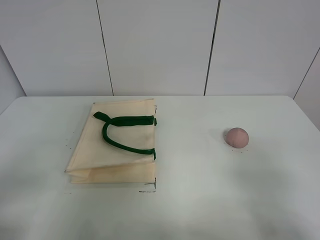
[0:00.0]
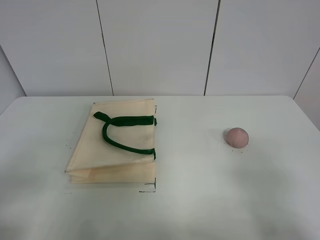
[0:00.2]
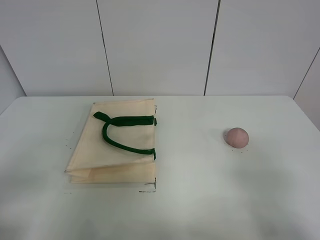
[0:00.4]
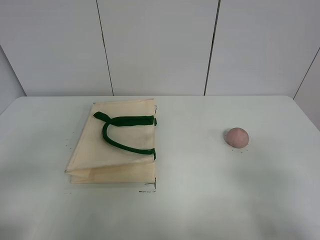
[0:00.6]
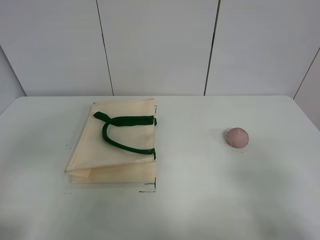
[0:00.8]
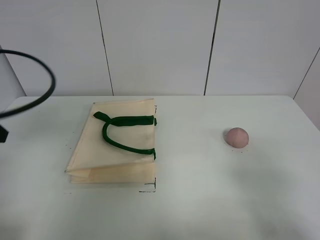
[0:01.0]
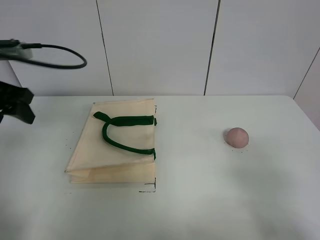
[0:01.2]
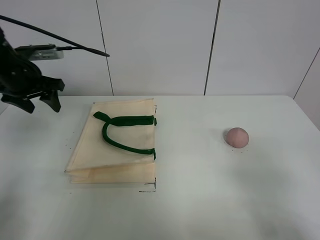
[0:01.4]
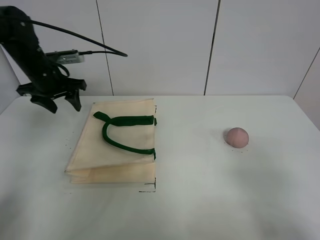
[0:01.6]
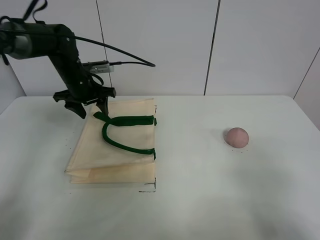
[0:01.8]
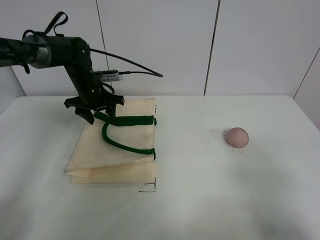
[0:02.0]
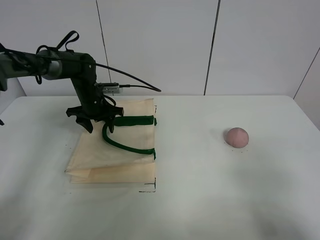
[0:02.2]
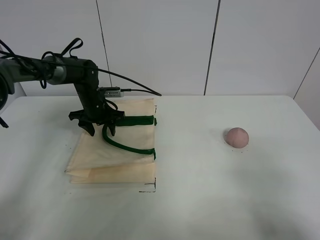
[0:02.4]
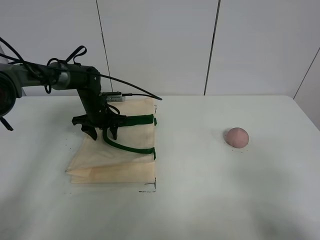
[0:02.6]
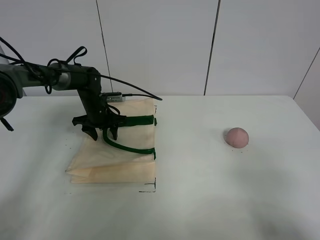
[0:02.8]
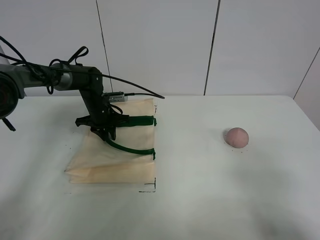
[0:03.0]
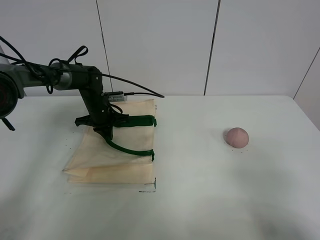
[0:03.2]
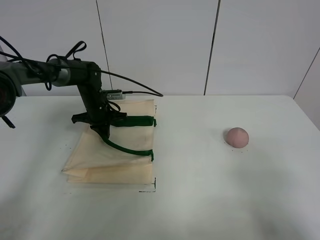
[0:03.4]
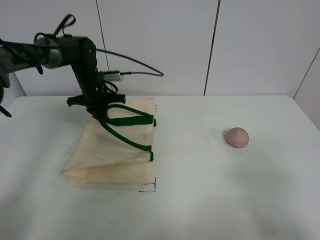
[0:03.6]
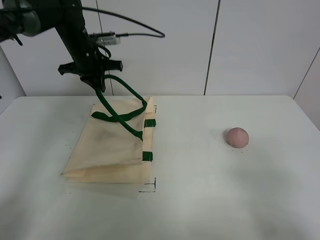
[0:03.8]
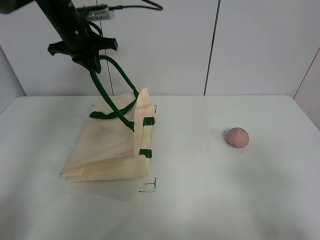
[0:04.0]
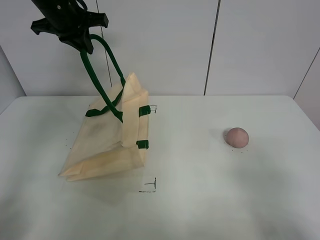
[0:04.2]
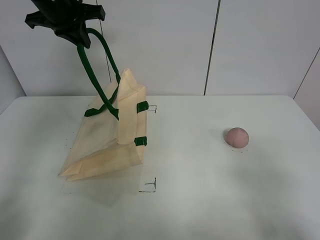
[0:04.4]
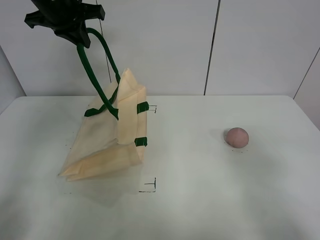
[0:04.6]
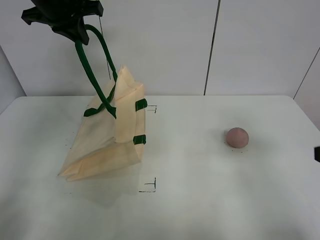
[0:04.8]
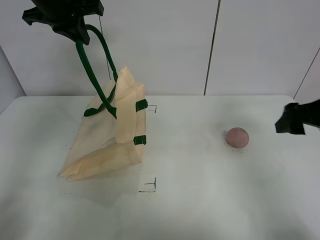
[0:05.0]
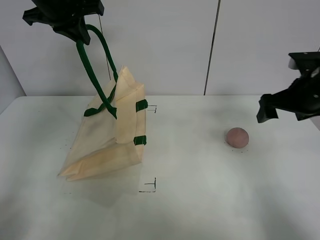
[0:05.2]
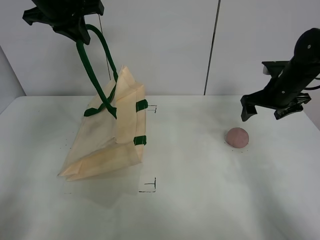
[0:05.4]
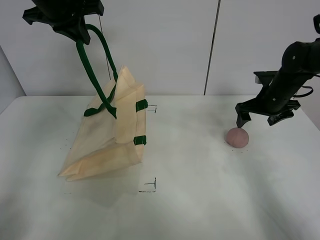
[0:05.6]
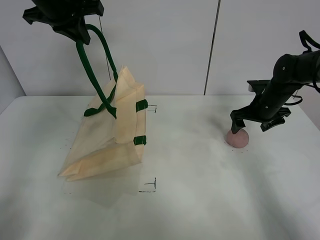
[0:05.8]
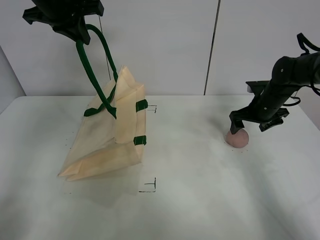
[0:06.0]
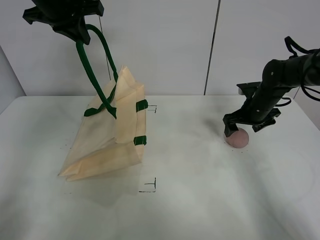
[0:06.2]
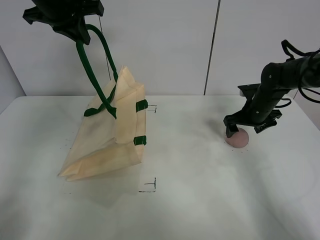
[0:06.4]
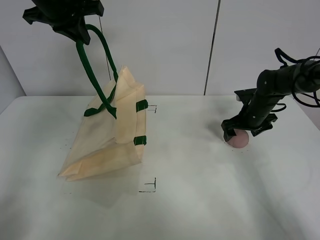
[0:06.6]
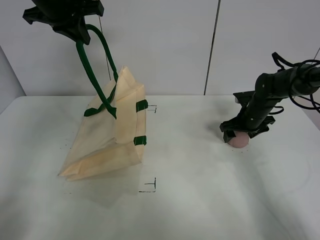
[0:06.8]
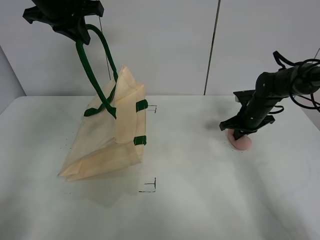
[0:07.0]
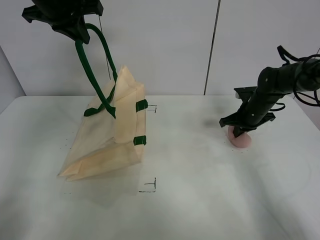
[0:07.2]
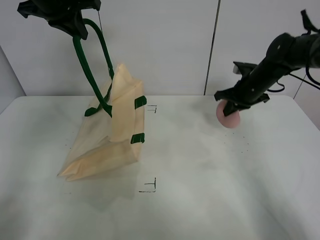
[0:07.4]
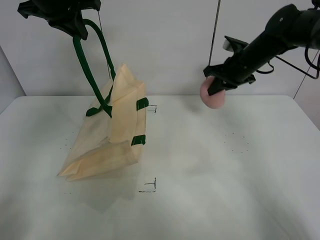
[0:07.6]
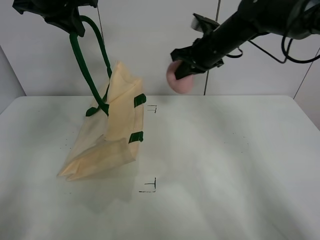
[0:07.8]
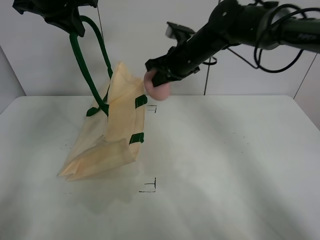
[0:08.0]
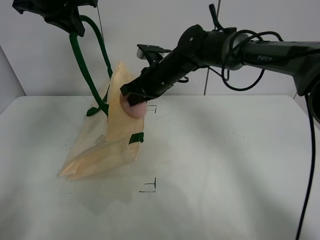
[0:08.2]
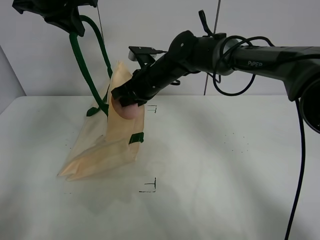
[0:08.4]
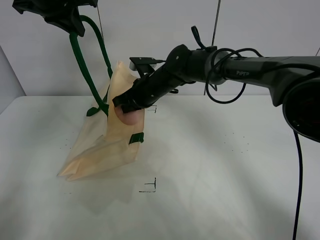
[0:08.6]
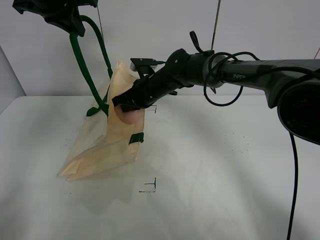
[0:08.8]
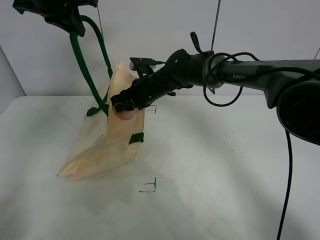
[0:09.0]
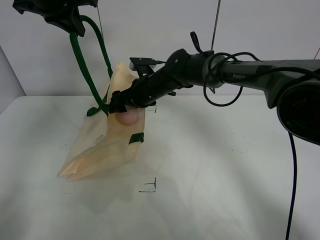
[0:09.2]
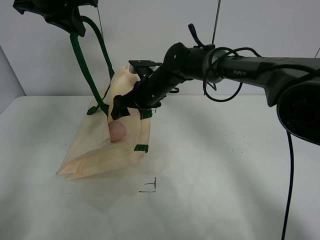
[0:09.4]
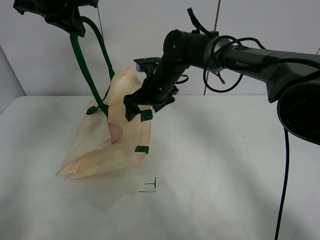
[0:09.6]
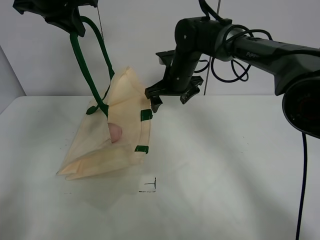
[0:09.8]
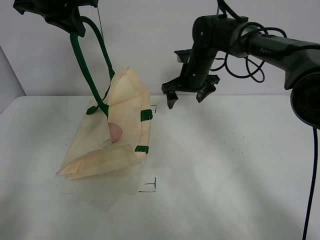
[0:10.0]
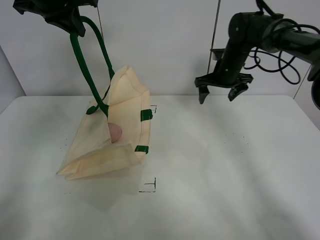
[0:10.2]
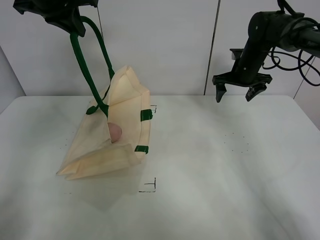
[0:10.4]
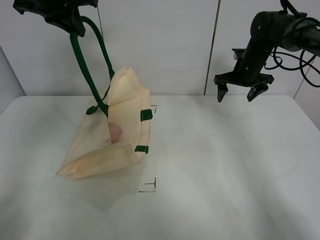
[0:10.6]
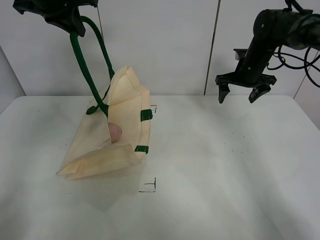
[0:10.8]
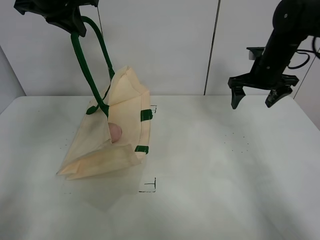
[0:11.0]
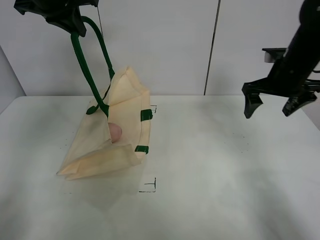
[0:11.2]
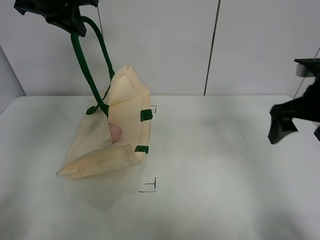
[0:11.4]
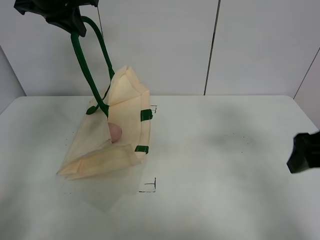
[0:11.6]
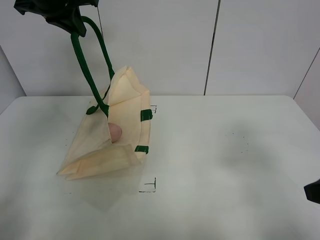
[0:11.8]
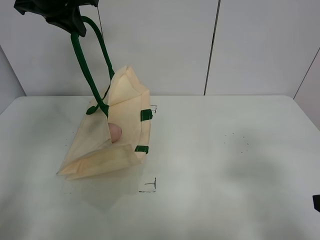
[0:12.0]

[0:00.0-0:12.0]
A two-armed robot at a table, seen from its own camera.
Task of the whole recording: open the white linen bag and put the peach in the bag.
Step, 0:00.0 to 0:04.4: Lift the handbag with left gripper.
Step, 0:04.6 to 0:07.2: Grasp the peach with right gripper.
Step, 0:07.4 to 0:09.6: Place the peach in the handbag with right gripper.
0:00.0 to 0:01.6: The left gripper travels forward by some 40 cm.
0:01.6 to 0:03.0: The left gripper heads downward and to the right, covering approximately 15 cm, and closes its fingers.
0:03.0 to 0:04.4: The left gripper travels upward by roughly 30 cm.
0:04.4 to 0:06.0: The right gripper heads forward, covering about 40 cm.
0:06.0 to 0:07.6: The right gripper travels upward and to the left by some 15 cm, and closes up.
0:07.6 to 0:09.0: The right gripper shifts about 20 cm to the left, and opens.
0:09.0 to 0:10.4: The right gripper heads to the right, covering roughly 25 cm.
0:10.4 to 0:12.0: The right gripper moves backward, some 40 cm.

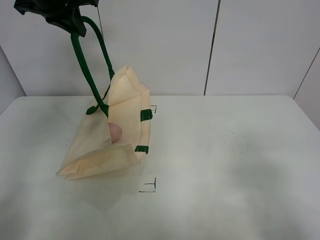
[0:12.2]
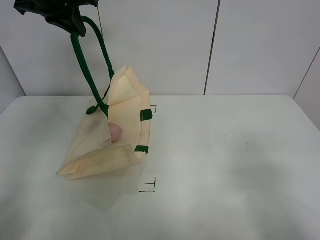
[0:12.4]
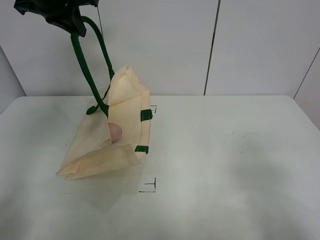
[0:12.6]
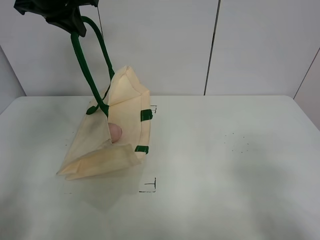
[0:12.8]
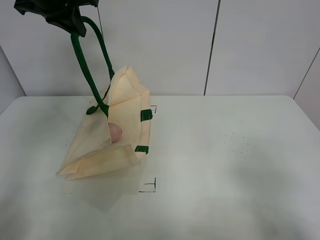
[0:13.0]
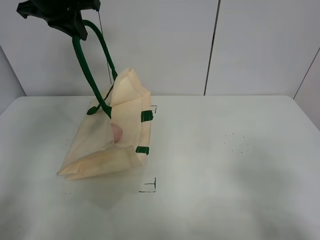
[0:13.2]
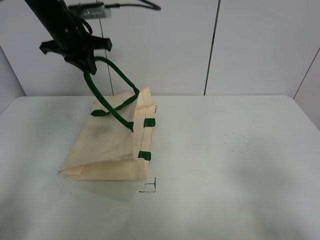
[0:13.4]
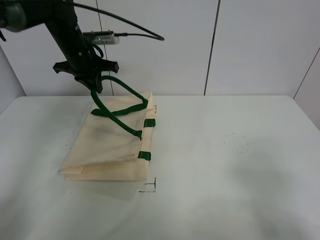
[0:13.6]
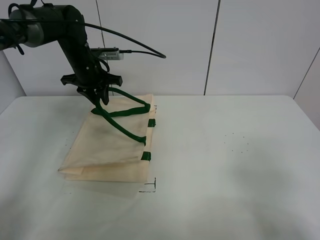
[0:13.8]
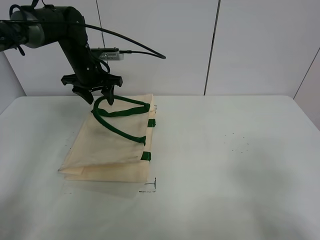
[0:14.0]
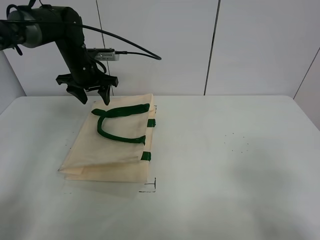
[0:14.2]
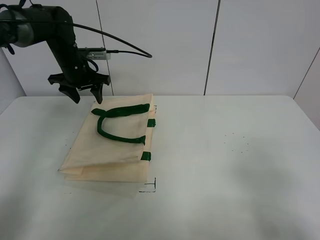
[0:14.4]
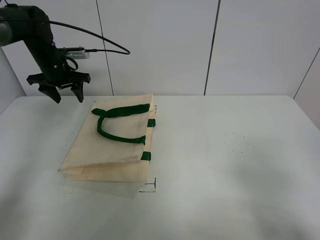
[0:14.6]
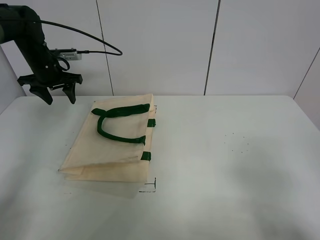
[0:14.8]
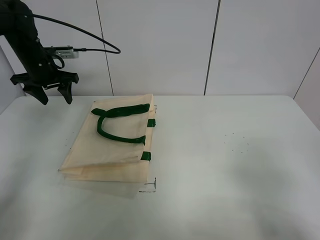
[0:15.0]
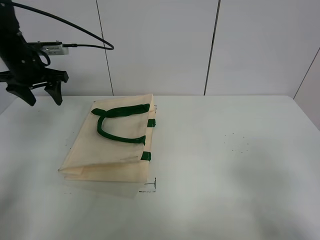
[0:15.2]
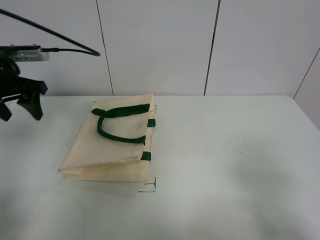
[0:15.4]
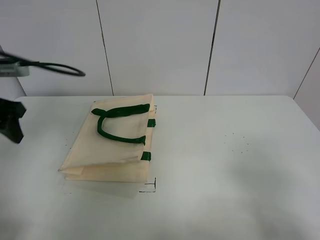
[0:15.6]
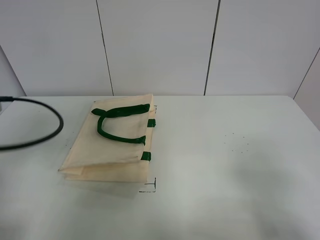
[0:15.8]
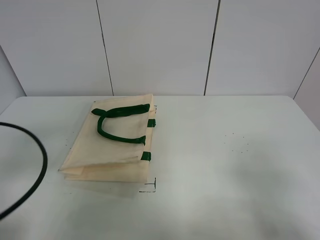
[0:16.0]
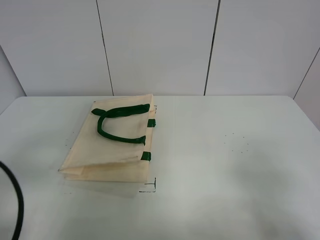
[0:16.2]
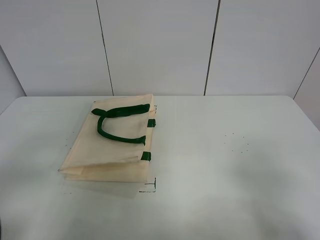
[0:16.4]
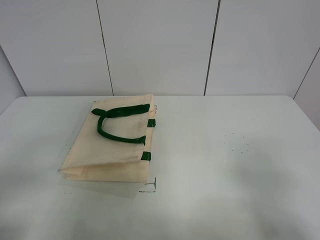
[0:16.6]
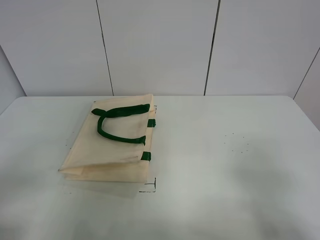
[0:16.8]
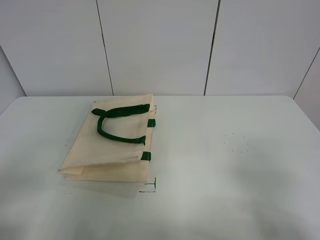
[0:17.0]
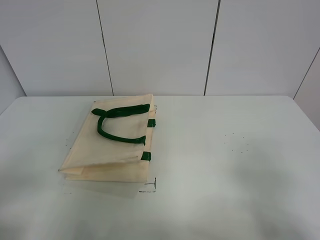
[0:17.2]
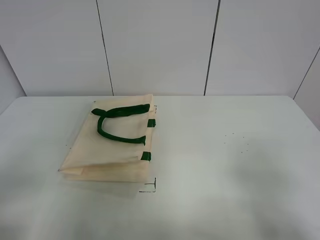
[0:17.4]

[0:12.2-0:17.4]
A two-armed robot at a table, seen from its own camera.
Task of the whole recording: open the white linen bag and put the peach in the bag.
Step, 0:12.2 to 0:14.2: Put down the handbag with left gripper.
0:12.2 to 0:14.0: The left gripper moves downward, about 20 cm, and opens its fingers.
0:14.0 to 0:15.6: The left gripper is displaced backward and to the left by approximately 25 cm.
0:15.6 to 0:17.4: The left gripper moves backward, roughly 25 cm.

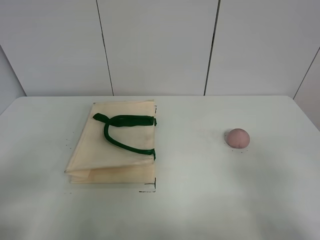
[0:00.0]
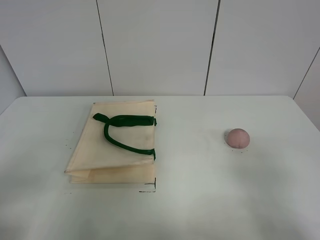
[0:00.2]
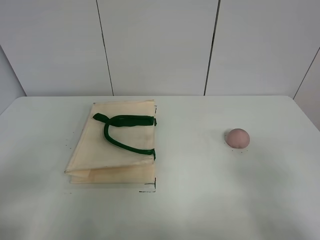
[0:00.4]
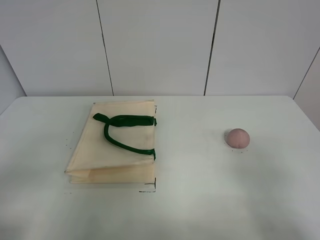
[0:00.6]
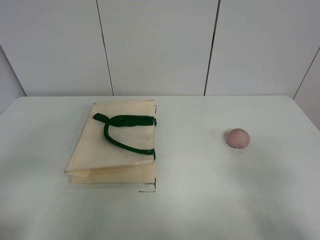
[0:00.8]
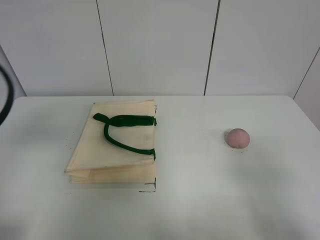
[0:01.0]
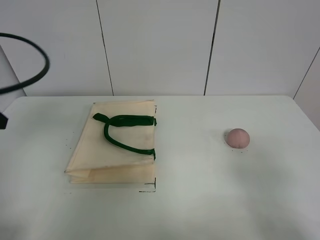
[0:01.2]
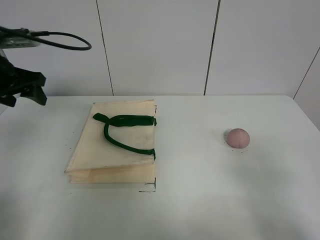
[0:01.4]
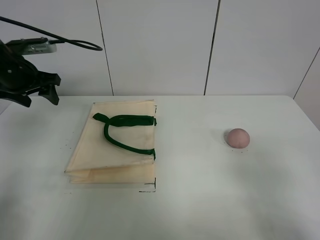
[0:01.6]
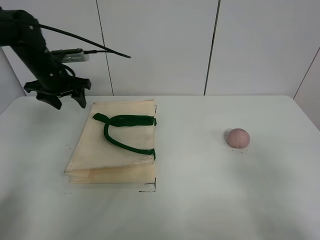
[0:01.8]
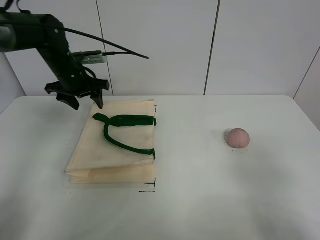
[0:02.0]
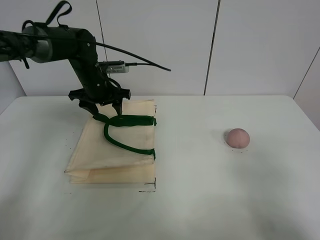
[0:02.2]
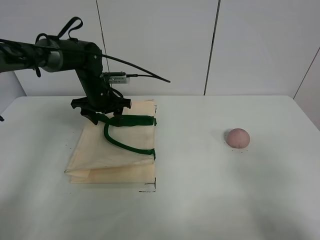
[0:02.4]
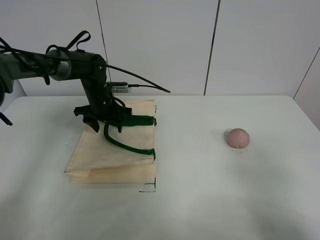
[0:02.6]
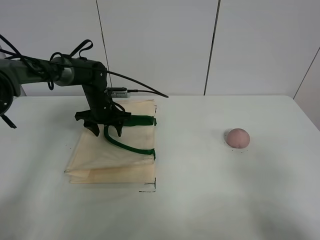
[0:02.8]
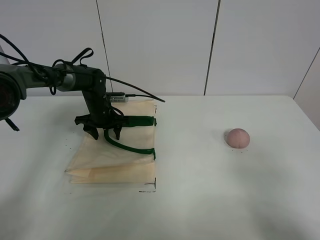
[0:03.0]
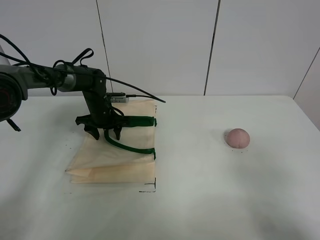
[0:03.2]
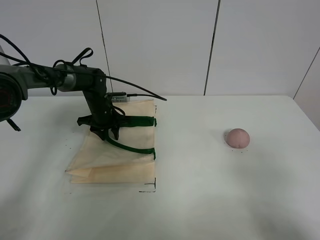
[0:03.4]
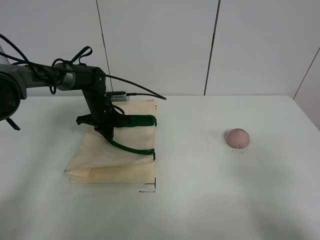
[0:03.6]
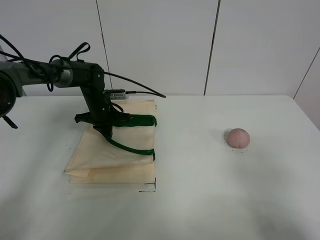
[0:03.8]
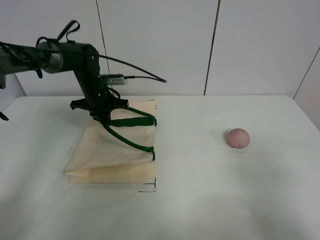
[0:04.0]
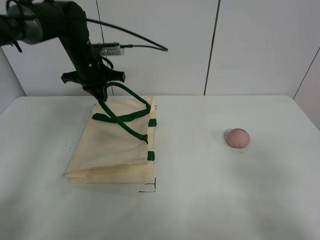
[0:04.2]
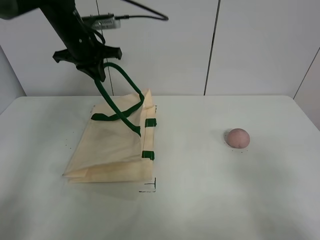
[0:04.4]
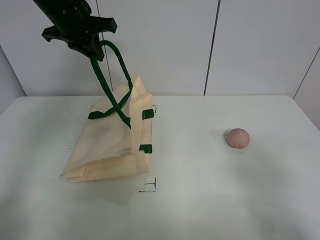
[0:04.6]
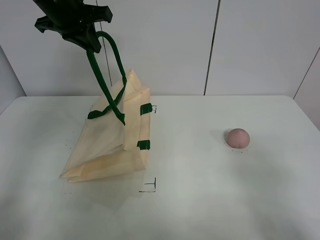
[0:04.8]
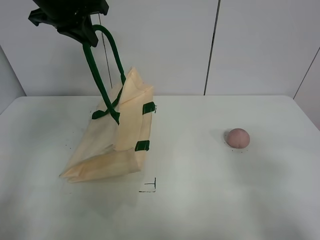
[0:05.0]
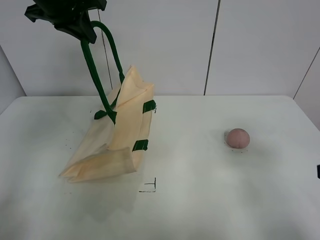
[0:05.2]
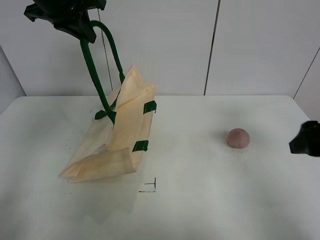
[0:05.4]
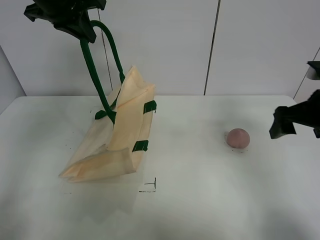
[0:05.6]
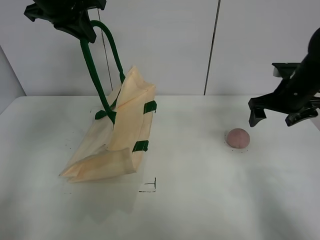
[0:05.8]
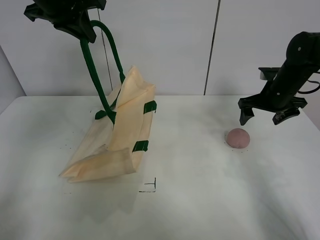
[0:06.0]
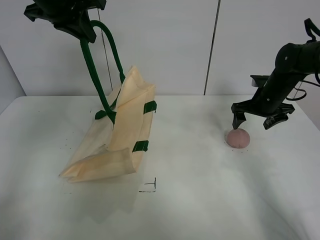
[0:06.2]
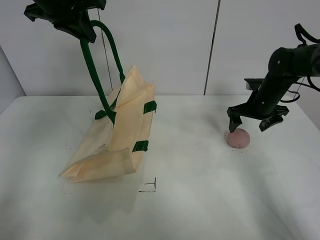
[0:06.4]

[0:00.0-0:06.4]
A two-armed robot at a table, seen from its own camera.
Task of the whole recording: open the white linen bag and put the peach in the bag.
Step, 0:00.0 to 0:05.2: Lift the handbag with left gripper.
0:00.0 to 0:01.6: The left gripper goes approximately 40 cm forward.
0:01.6 to 0:03.2: The left gripper shifts roughly 25 cm downward, to the right and forward.
0:03.2 to 0:04.8: The left gripper heads upward, covering about 30 cm, and closes up.
0:04.8 to 0:06.4: The right gripper travels forward by about 40 cm.
